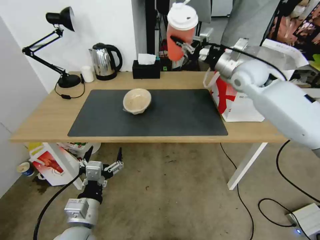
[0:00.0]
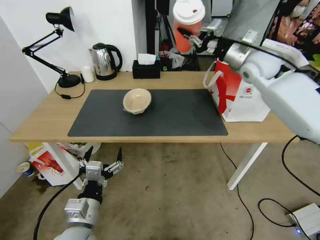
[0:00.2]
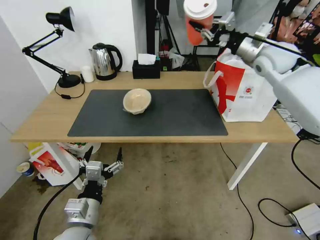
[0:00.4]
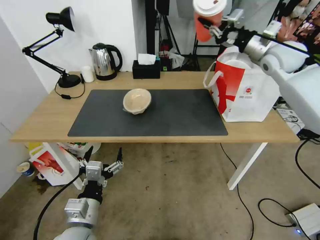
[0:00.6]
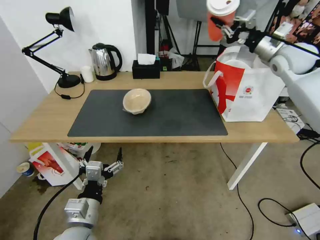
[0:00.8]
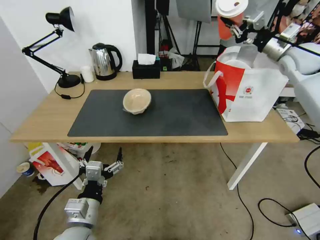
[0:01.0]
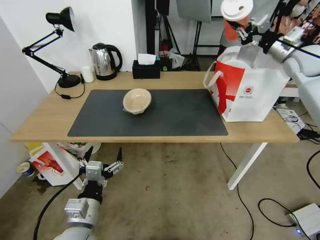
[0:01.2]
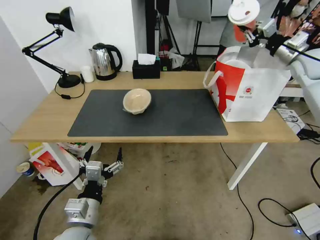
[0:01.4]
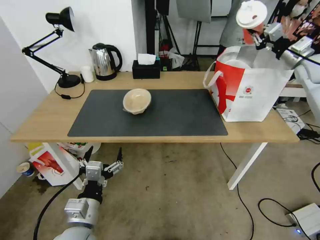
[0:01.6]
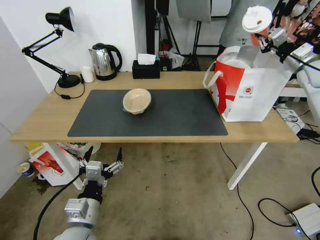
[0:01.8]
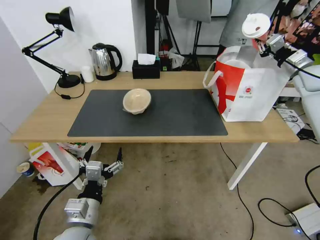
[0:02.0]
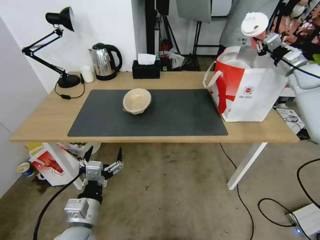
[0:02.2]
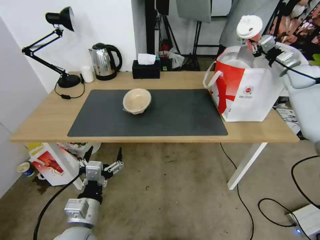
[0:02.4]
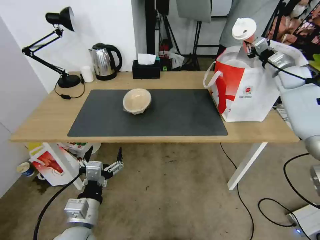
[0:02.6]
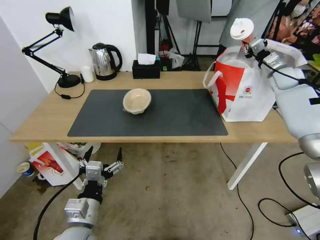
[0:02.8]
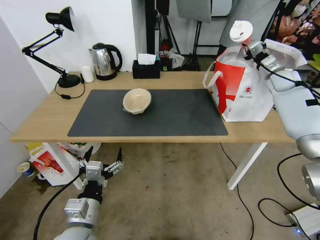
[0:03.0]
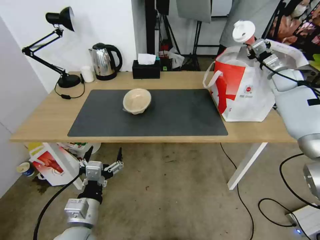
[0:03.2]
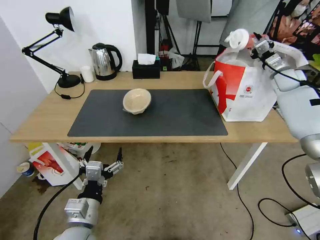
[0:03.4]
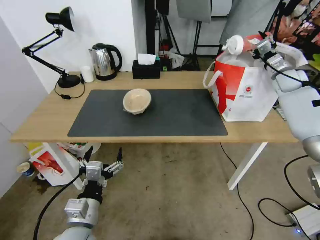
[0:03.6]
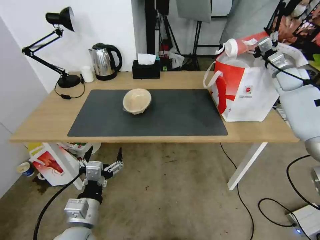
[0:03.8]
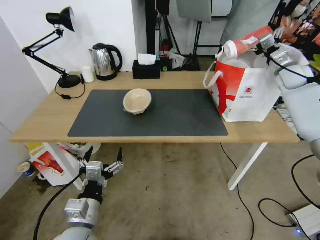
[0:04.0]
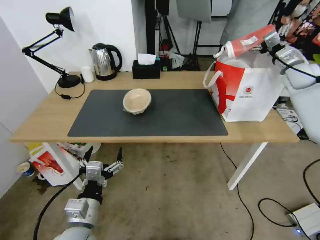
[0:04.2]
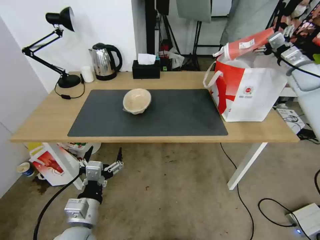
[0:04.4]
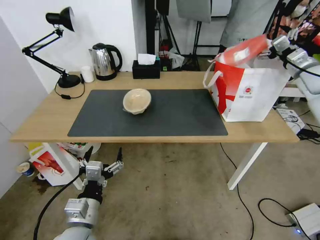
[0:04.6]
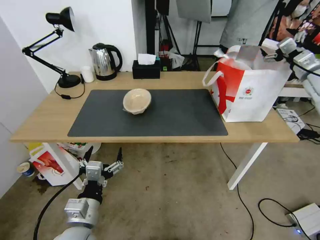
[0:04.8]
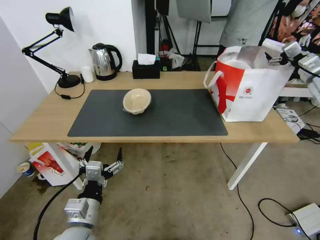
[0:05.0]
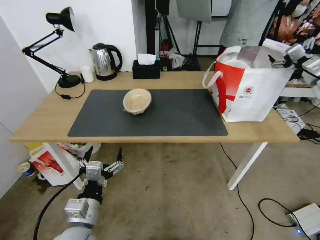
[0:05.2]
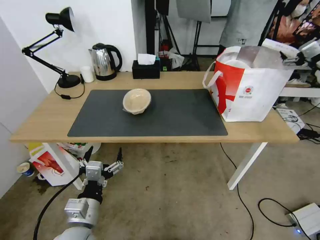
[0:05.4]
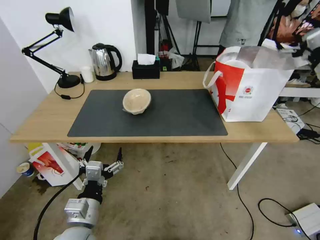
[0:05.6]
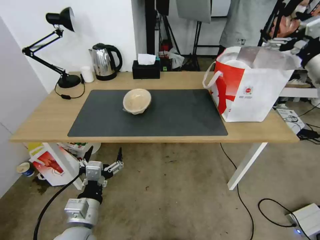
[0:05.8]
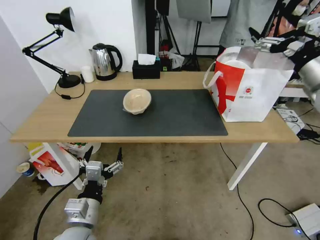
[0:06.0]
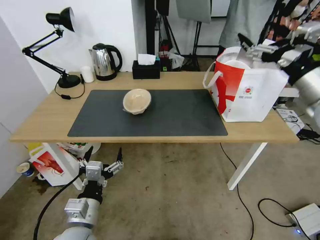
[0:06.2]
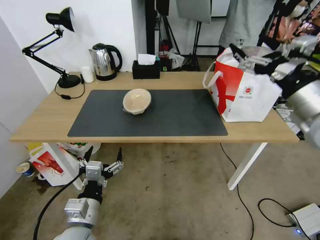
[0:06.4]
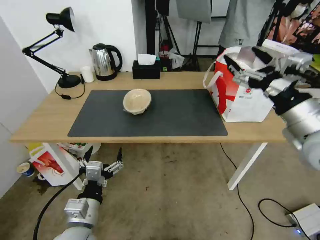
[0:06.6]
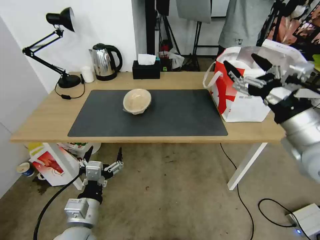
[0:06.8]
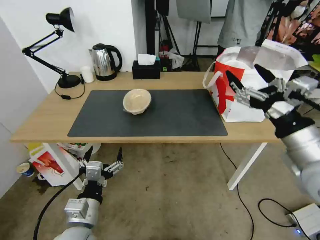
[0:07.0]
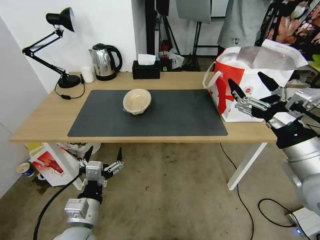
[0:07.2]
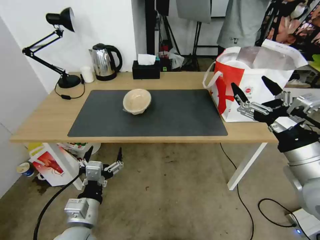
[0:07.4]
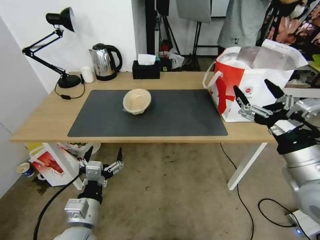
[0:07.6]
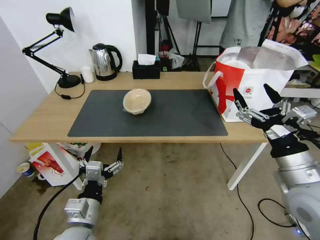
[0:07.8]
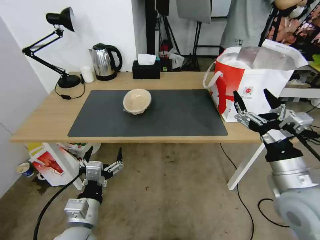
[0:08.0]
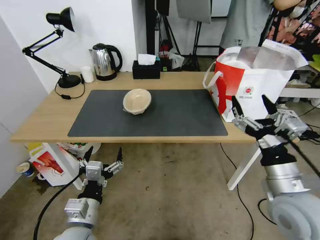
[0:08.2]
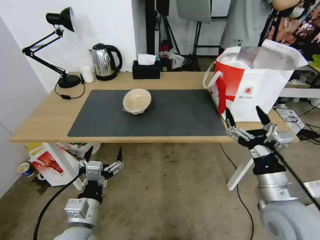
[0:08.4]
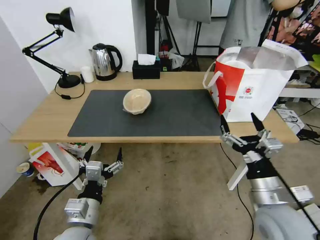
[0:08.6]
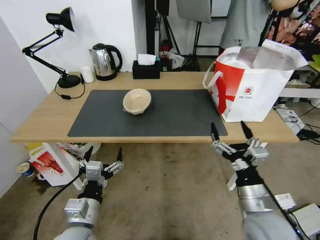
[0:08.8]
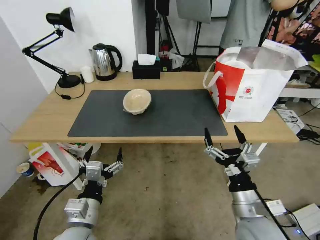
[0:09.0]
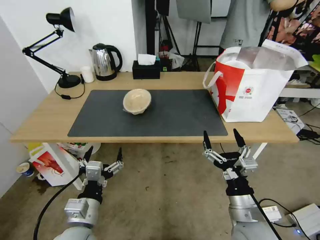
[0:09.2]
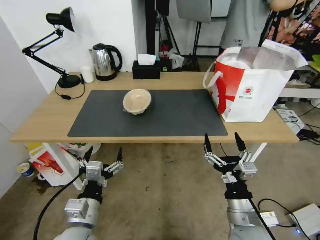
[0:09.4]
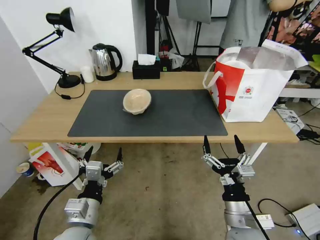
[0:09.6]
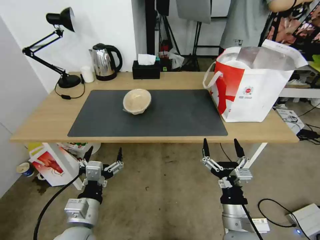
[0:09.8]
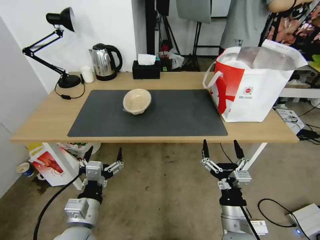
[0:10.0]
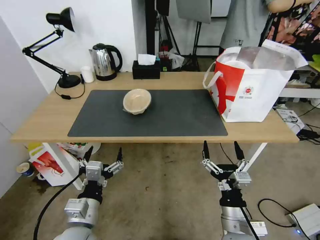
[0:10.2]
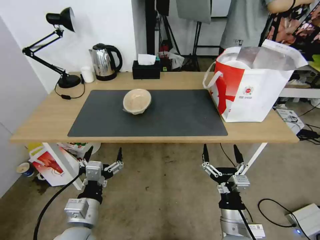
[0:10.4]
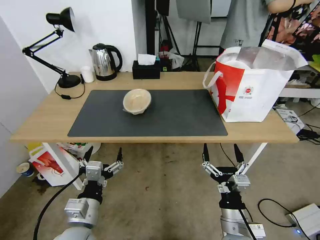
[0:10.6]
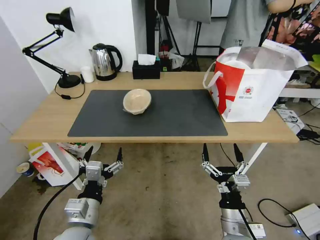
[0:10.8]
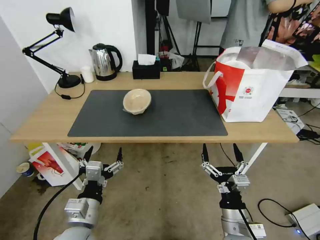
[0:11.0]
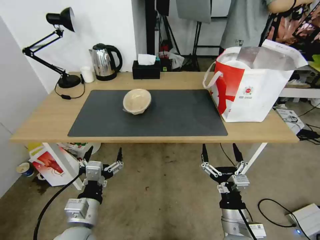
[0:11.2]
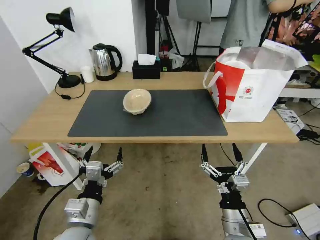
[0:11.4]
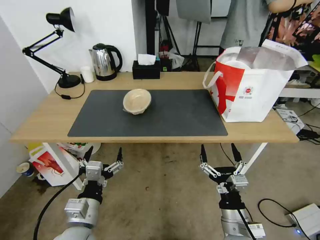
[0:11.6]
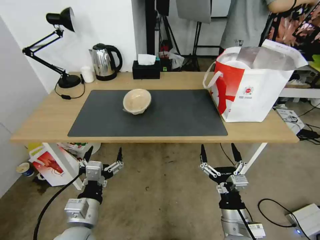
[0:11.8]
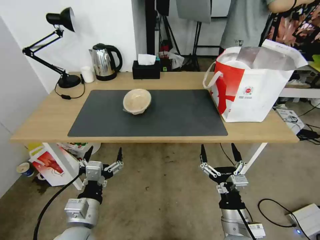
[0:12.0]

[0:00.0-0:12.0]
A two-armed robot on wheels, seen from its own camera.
Task of the whole recording: Pick up the trash from the table and place it into the takeout bag.
0:00.0 to 0:01.6: The right gripper travels to the right by some 20 cm.
0:01.6 to 0:03.0: The right gripper moves downward and forward, some 10 cm.
0:03.0 to 0:04.4: The right gripper heads backward, covering roughly 5 cm, and opens up.
0:04.4 to 0:06.0: The right gripper travels backward and to the left by about 20 cm.
0:06.0 to 0:07.6: The right gripper shifts roughly 25 cm backward, downward and to the left.
0:07.6 to 0:09.0: The right gripper moves downward and to the left, approximately 20 cm.
0:09.0 to 0:10.4: The right gripper is displaced downward by roughly 5 cm.
0:10.4 to 0:12.0: Both grippers stay put.

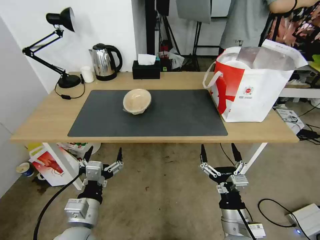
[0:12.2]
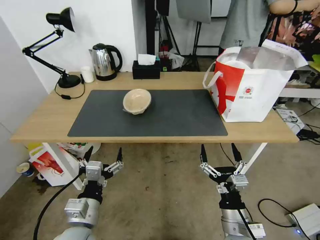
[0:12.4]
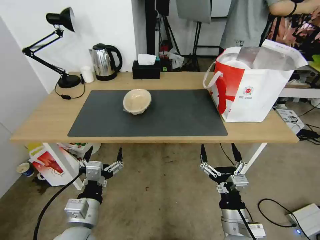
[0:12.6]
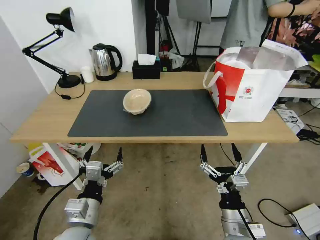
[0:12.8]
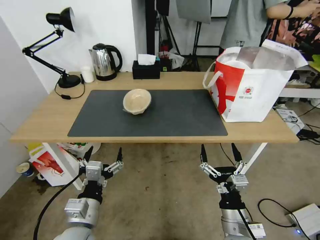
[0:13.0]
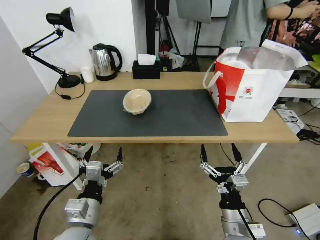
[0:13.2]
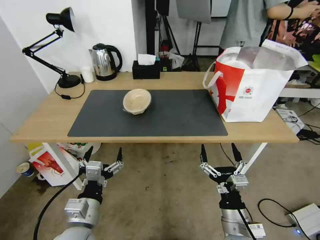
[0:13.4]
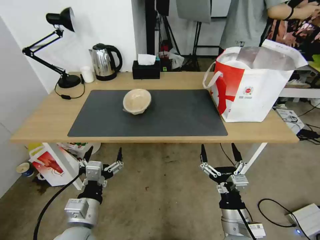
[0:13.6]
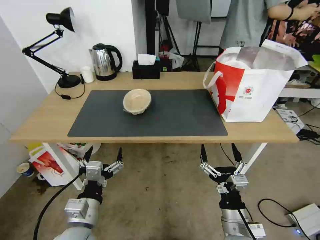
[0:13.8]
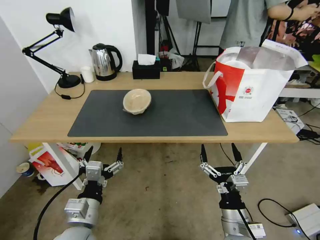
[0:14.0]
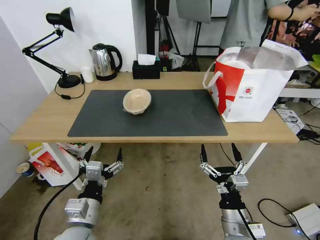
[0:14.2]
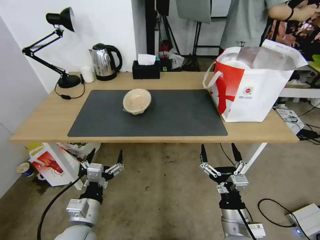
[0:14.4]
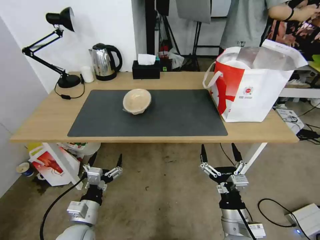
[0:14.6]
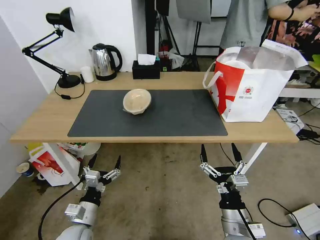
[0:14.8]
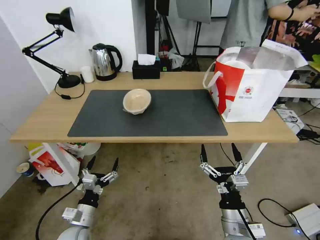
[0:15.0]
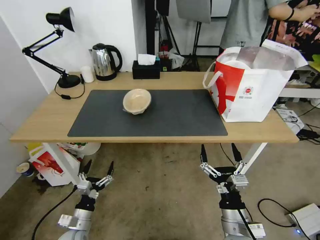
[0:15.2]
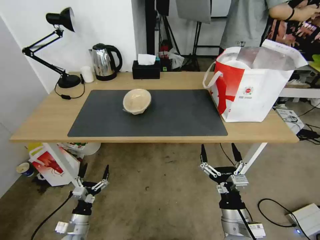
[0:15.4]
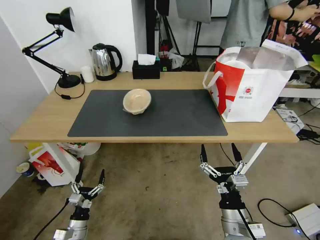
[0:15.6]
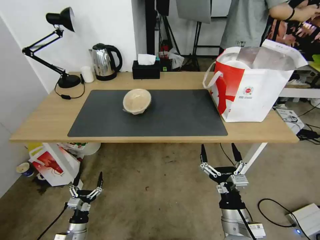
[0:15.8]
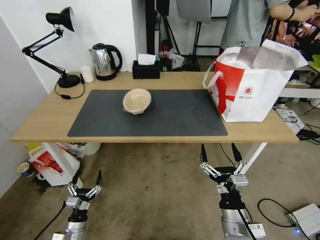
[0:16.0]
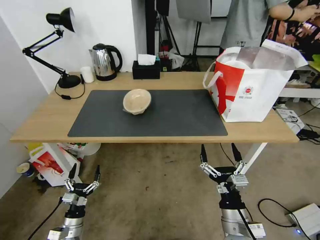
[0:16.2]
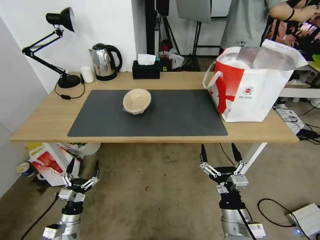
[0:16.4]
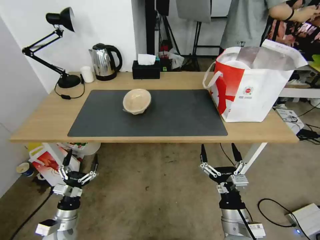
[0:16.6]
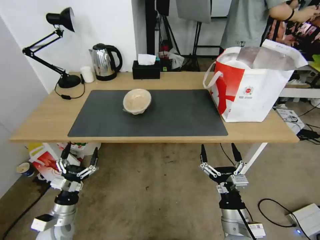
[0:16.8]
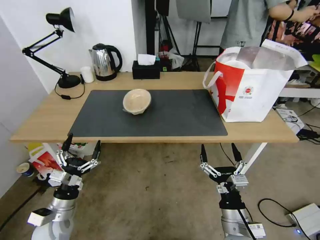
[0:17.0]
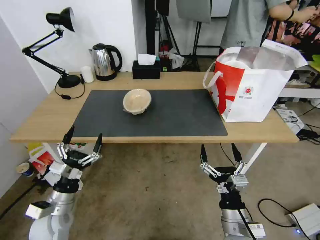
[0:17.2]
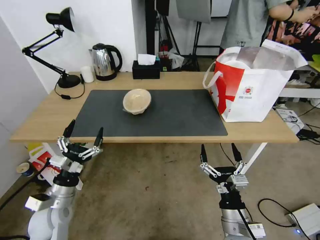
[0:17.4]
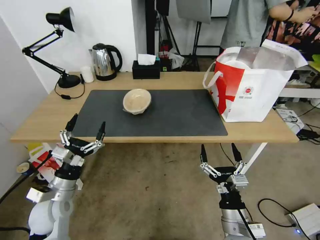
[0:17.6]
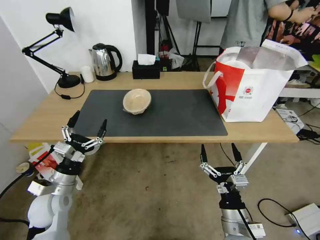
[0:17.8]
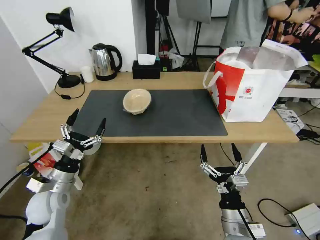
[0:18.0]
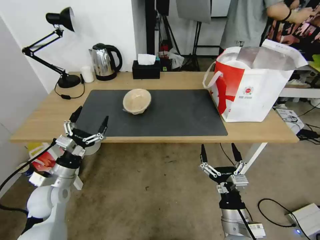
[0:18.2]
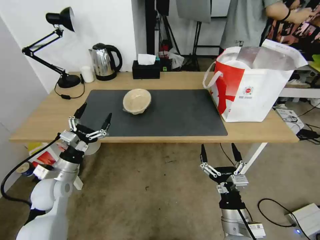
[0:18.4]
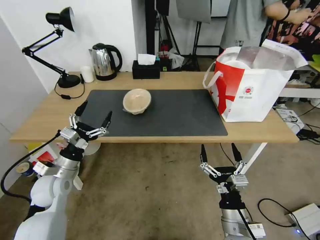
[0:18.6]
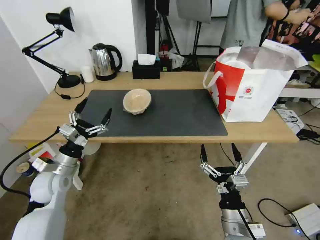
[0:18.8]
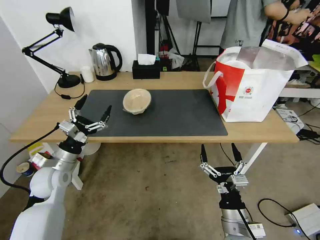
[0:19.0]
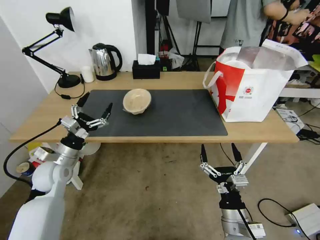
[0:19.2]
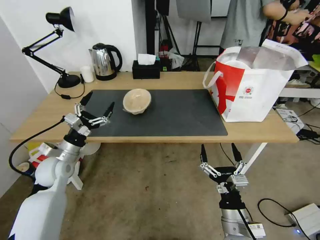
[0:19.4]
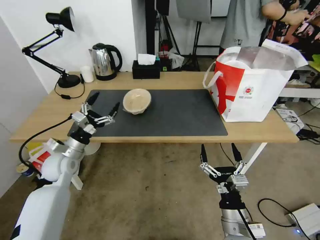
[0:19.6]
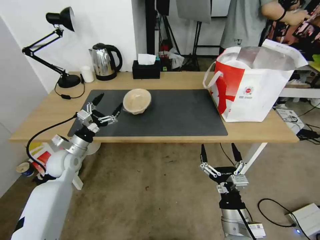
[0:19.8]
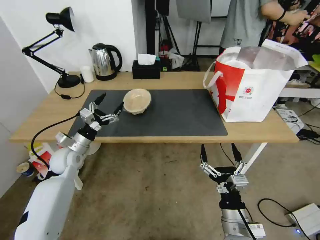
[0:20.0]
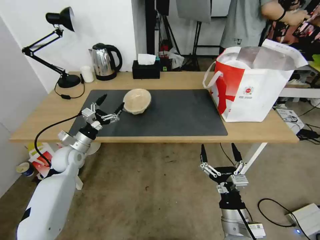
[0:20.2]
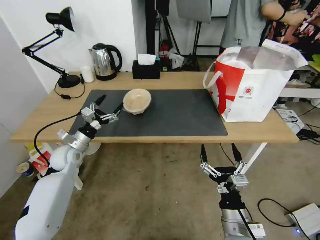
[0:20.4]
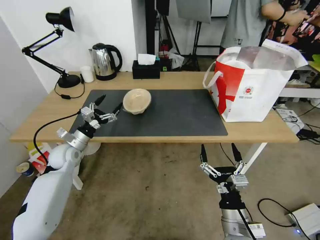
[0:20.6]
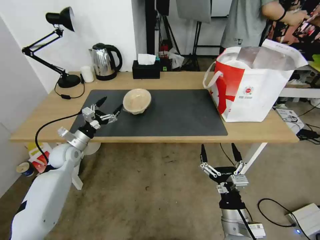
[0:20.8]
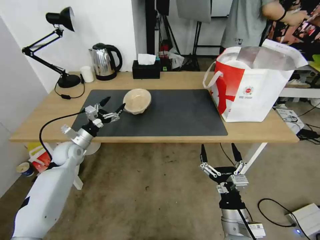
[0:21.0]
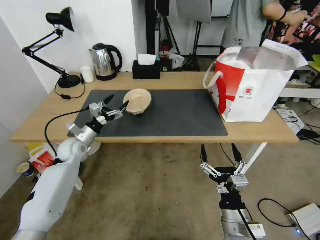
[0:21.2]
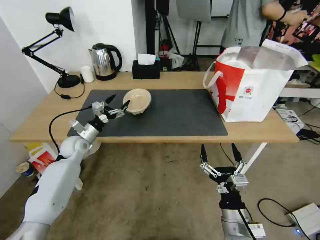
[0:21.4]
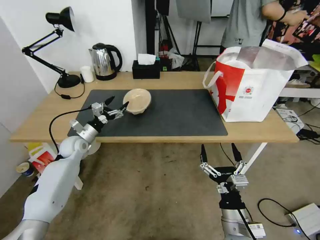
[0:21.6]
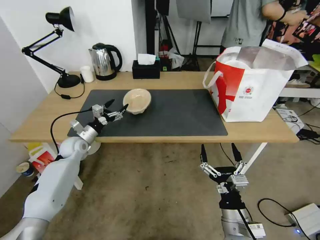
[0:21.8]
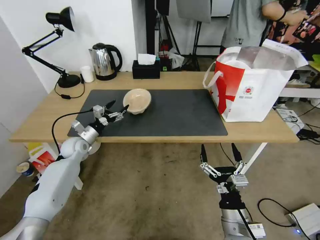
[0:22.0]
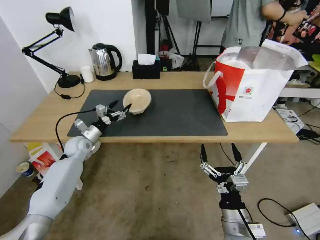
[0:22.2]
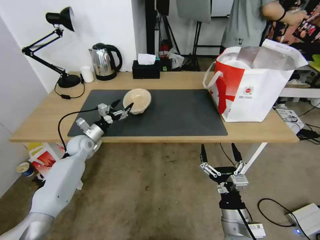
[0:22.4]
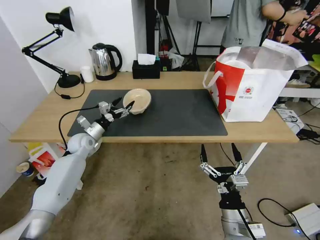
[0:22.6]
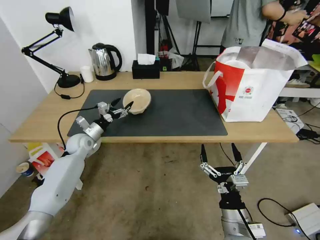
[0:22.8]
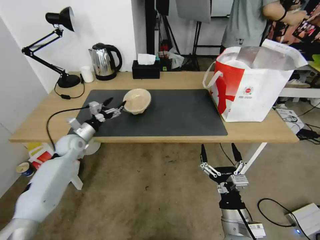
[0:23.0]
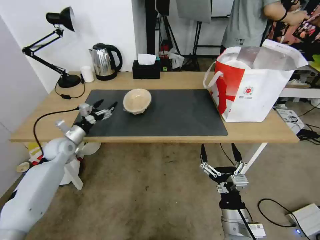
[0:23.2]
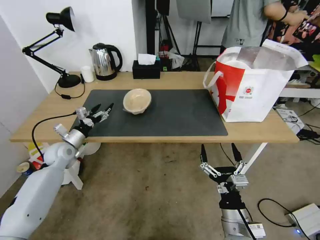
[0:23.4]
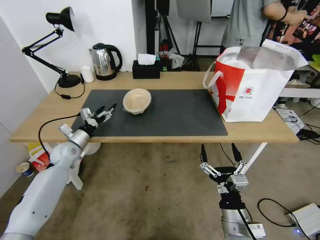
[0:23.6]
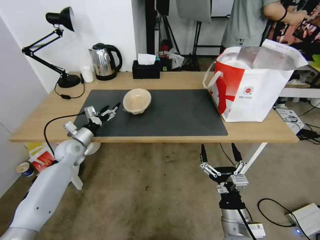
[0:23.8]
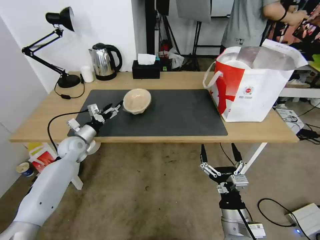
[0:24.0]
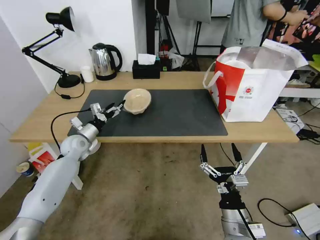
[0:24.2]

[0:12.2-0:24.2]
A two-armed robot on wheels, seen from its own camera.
Task of the whole recording: Pick up the trash from the table and place it into the takeout bag.
0:12.2 to 0:13.8: Neither gripper changes place.
0:13.8 to 0:15.2: The left gripper goes roughly 20 cm downward and to the left.
0:15.2 to 0:16.6: The left gripper goes downward and returns, roughly 10 cm each way.
0:16.6 to 0:18.2: The left gripper moves upward and forward, some 15 cm.
0:18.2 to 0:19.8: The left gripper goes some 10 cm forward.
0:19.8 to 0:21.2: The left gripper is displaced forward by about 5 cm.
0:21.2 to 0:22.6: The grippers stay close to where they were, moving slightly.
